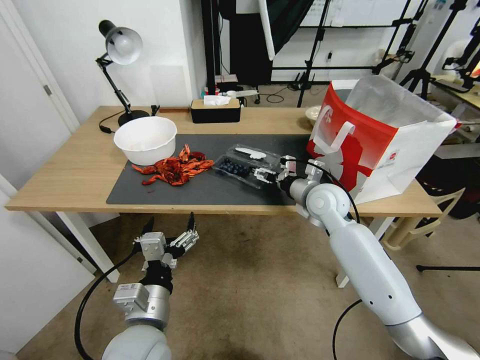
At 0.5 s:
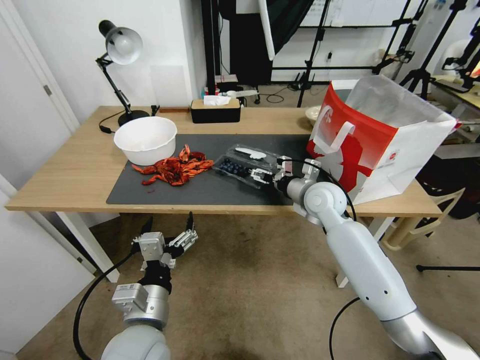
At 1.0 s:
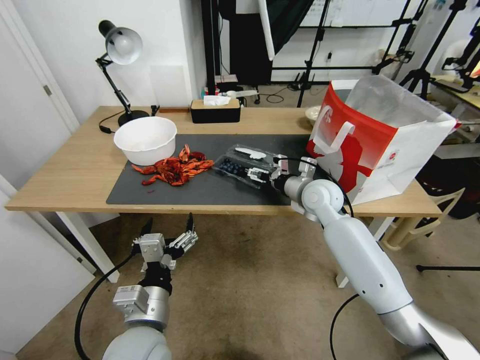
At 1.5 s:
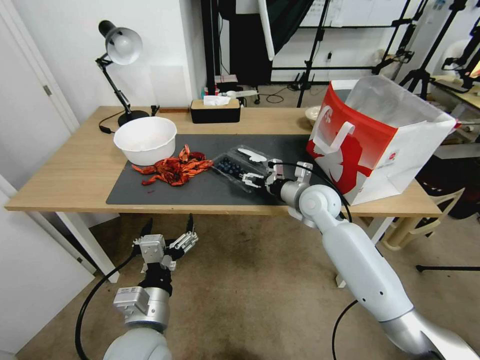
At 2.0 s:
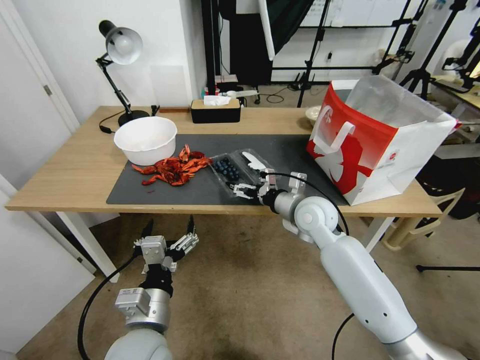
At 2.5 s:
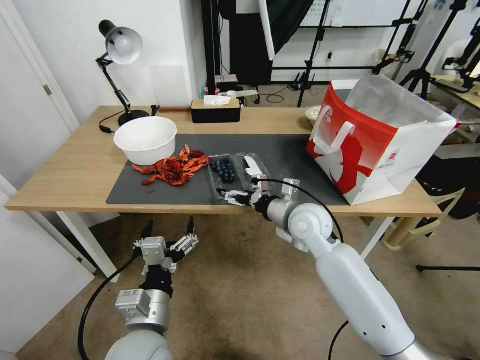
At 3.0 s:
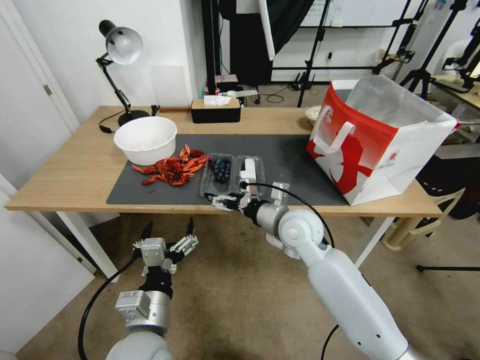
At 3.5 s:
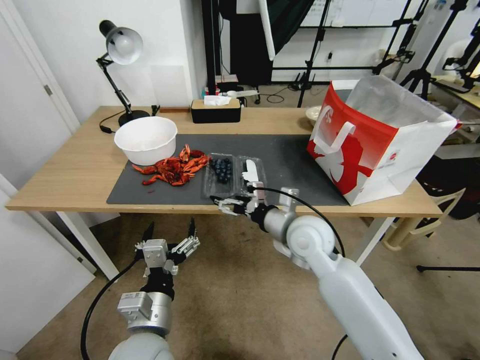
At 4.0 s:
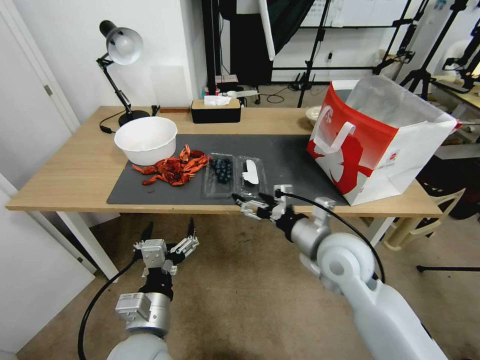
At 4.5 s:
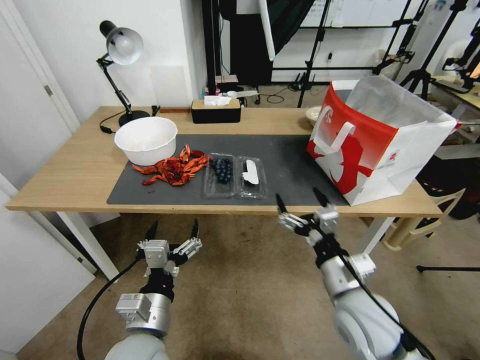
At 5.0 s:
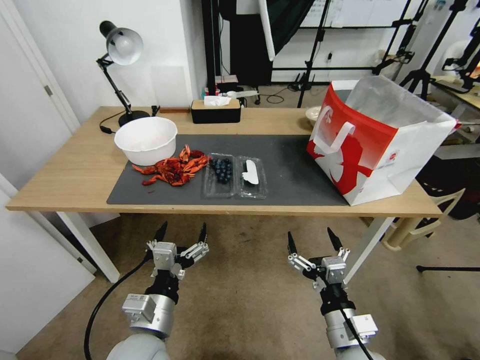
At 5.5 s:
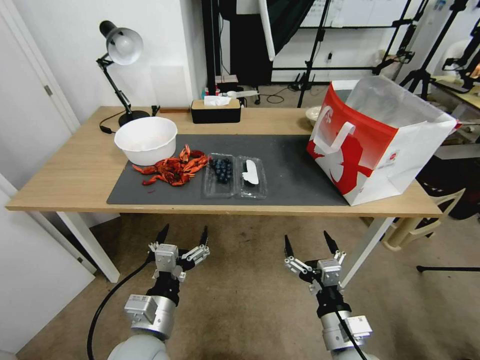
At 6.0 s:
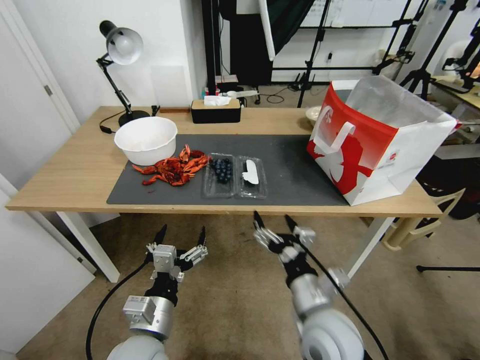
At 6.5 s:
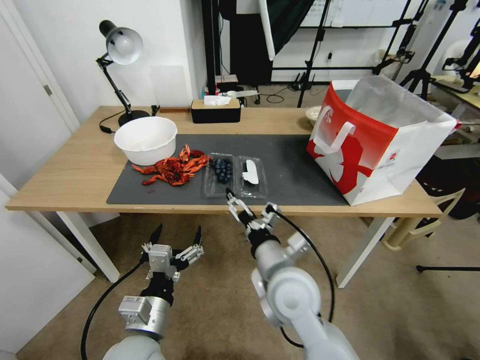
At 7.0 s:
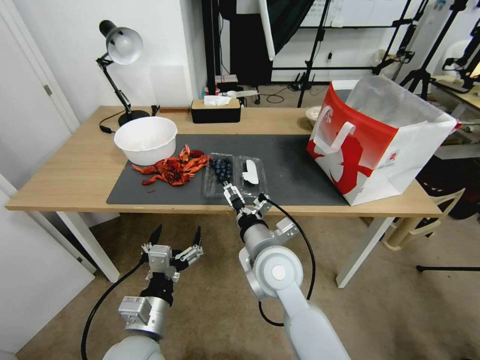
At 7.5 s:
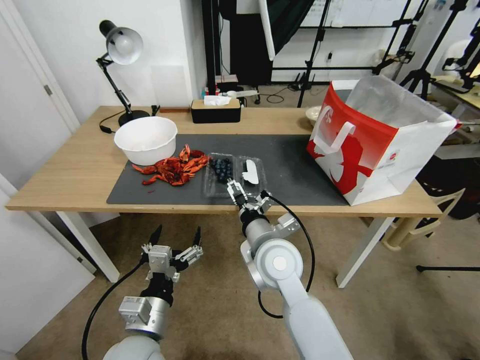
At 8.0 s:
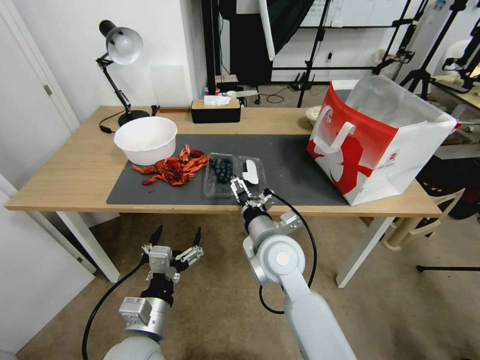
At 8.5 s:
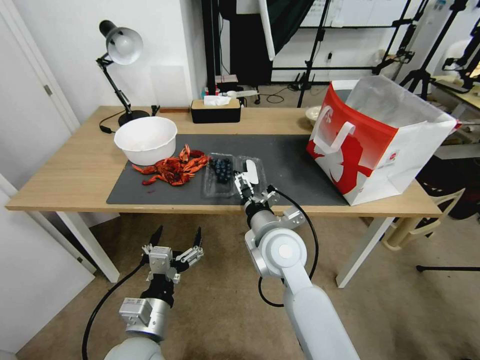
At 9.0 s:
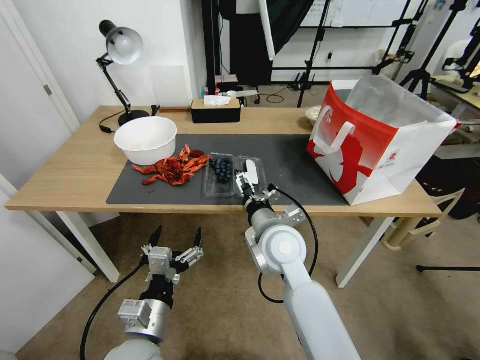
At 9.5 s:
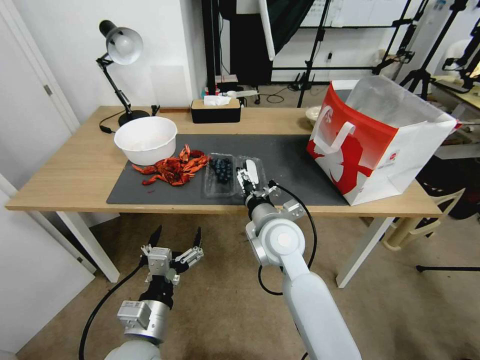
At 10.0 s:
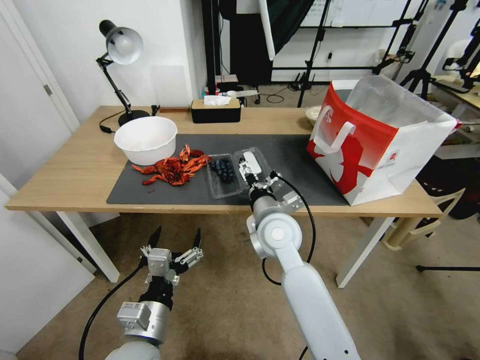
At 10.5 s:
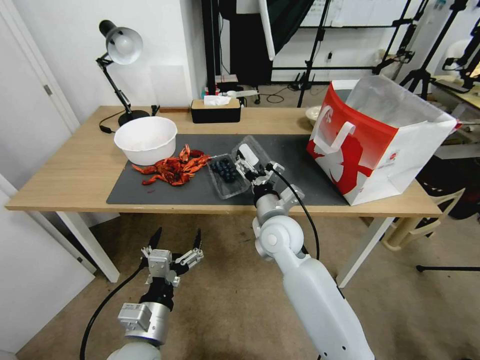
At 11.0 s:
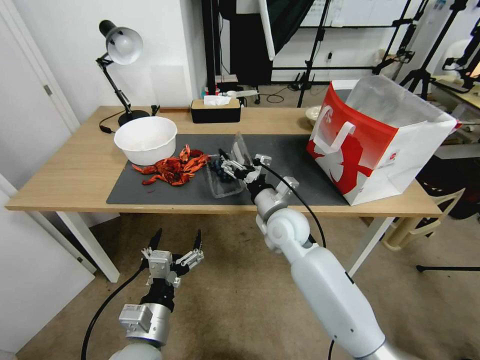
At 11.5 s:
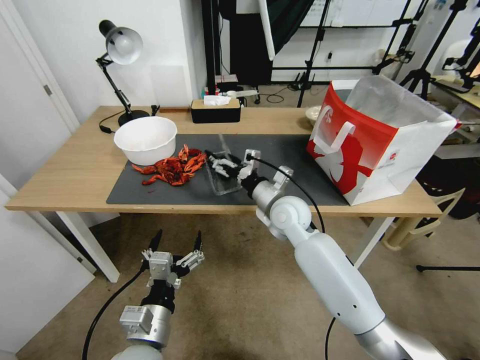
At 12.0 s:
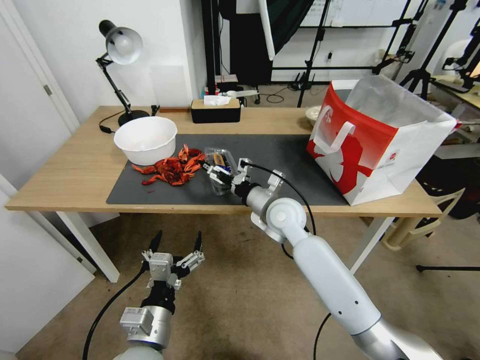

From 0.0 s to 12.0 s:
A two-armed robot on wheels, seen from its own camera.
Task of the whole recording: Close the takeout container lid, then place the container into the takeout bag.
From 0.0 s to 2.0 s: The grippers make only small movements.
From 2.0 s to 4.0 s: The right gripper shifts about 10 cm backward.
From 4.0 s to 6.0 s: The right gripper shifts about 15 cm backward and downward.
From 6.0 s to 8.0 s: The right gripper goes approximately 15 cm forward and to the left.
From 8.0 s to 10.0 s: The grippers make only small movements.
From 10.0 s to 12.0 s: The right gripper goes roughly 5 cm forward.

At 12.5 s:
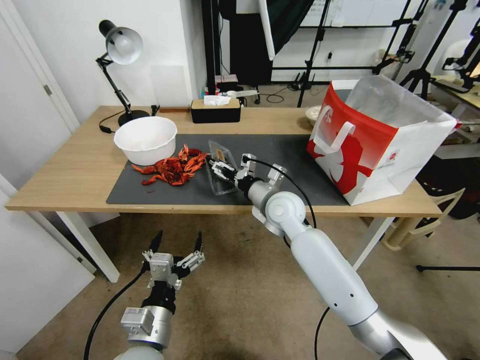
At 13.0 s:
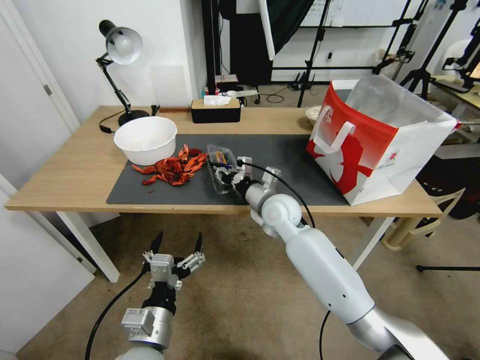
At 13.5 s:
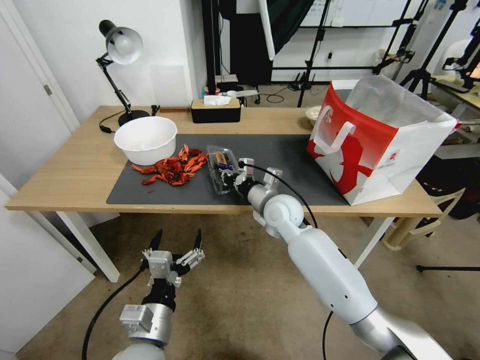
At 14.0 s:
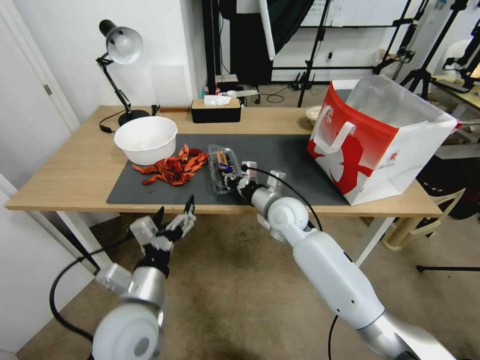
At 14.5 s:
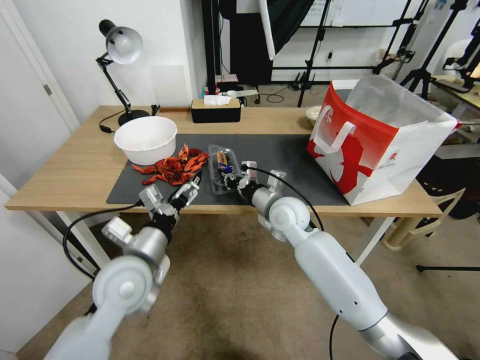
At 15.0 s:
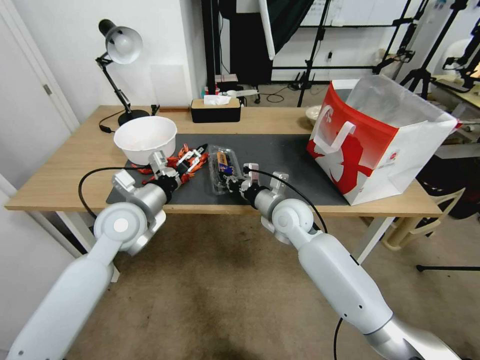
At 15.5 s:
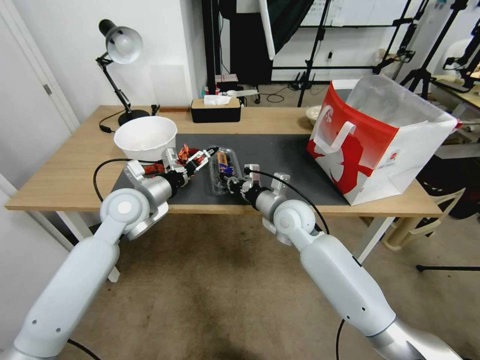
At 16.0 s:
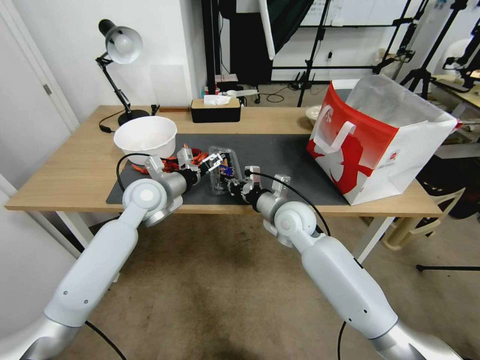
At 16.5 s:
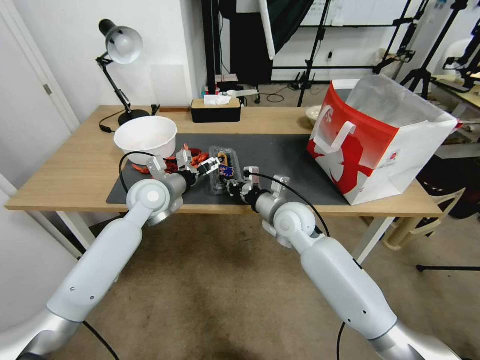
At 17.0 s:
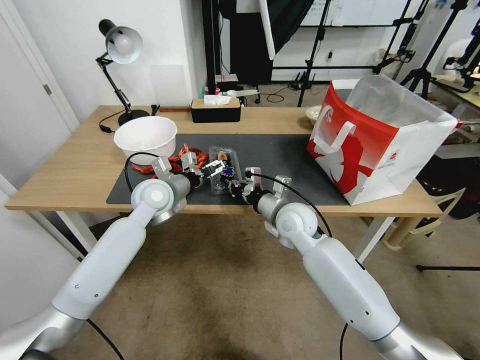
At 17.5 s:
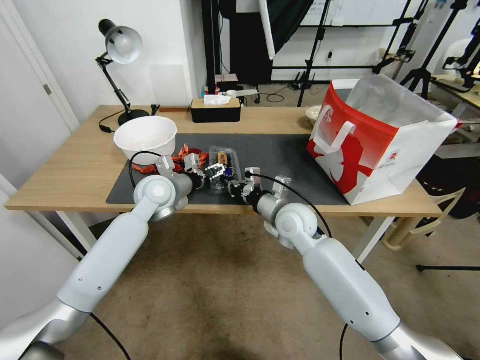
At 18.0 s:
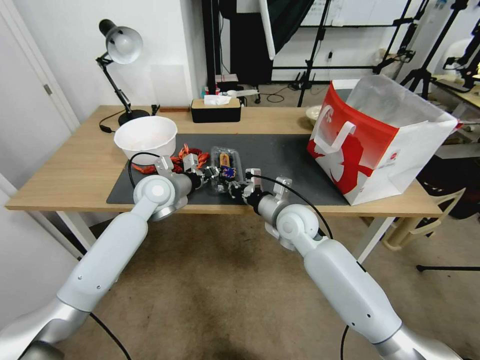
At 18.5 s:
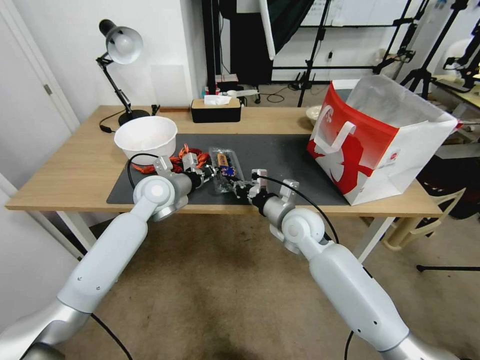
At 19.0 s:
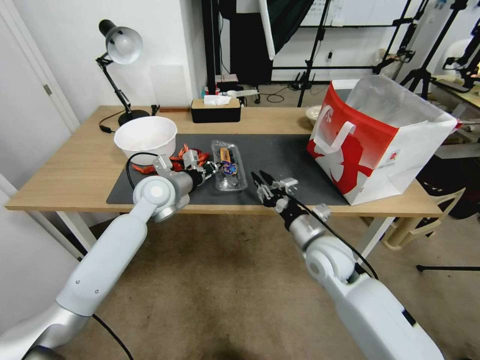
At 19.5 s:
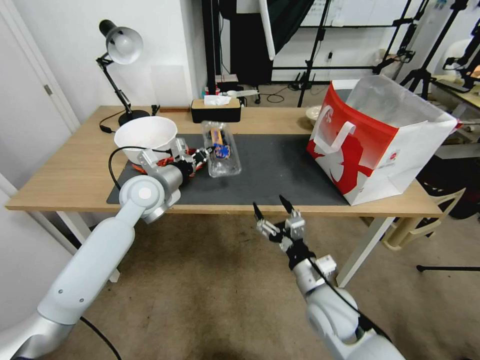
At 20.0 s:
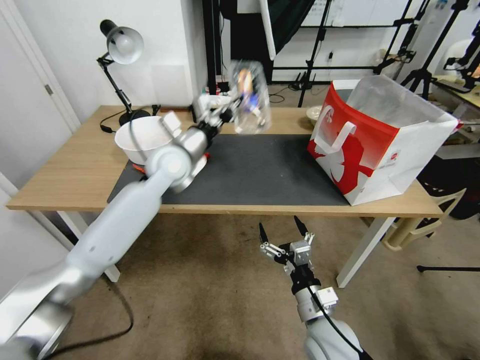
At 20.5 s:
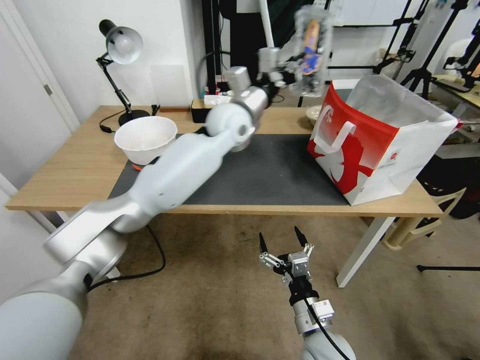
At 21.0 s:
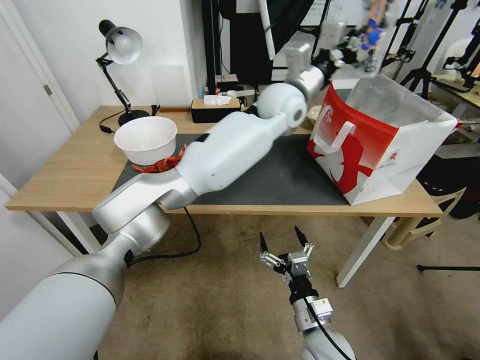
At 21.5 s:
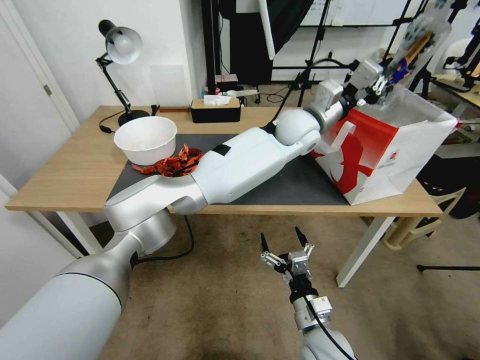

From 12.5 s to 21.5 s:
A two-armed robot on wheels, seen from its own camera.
Task of the whole recording: Close the takeout container lid, then place the container into the takeout bag.
From 12.5 s to 14.5 s: The left gripper heads forward and upward, covering some 15 cm. Meanwhile the right gripper closes.
From 14.5 s to 17.0 s: The left gripper moves forward, some 20 cm.
From 17.0 s to 19.5 s: The right gripper heads backward and downward, covering about 20 cm, and opens its fingers, while the left gripper closes up.
From 19.5 s to 21.5 s: The left gripper heads to the right, covering about 35 cm. The right gripper goes roughly 10 cm backward and downward.

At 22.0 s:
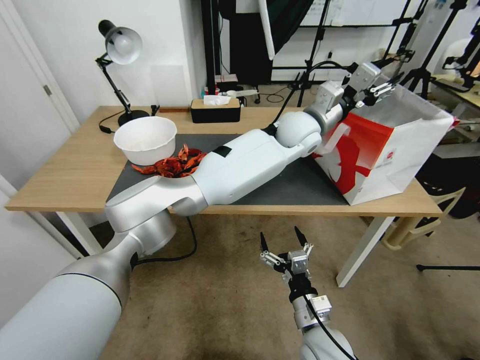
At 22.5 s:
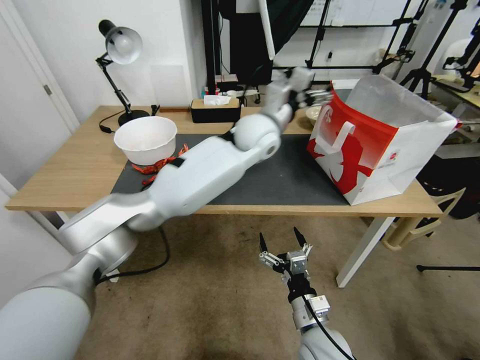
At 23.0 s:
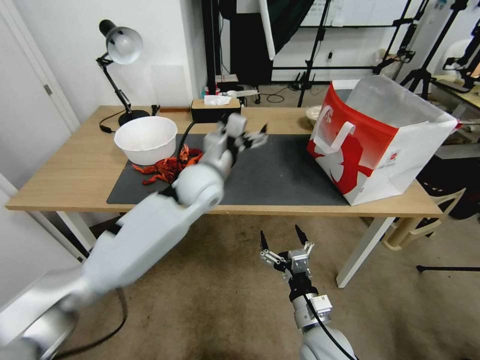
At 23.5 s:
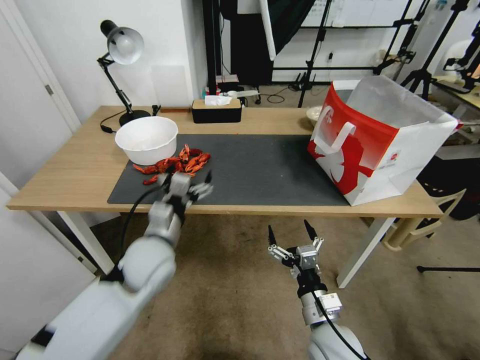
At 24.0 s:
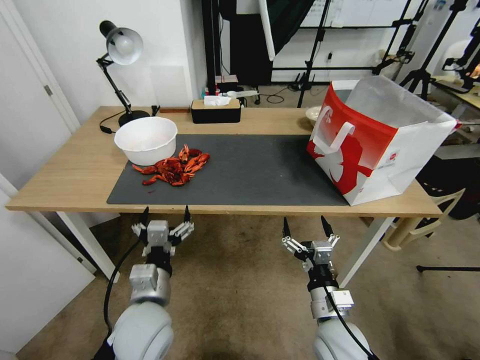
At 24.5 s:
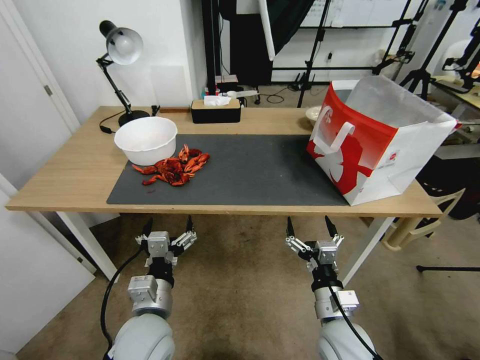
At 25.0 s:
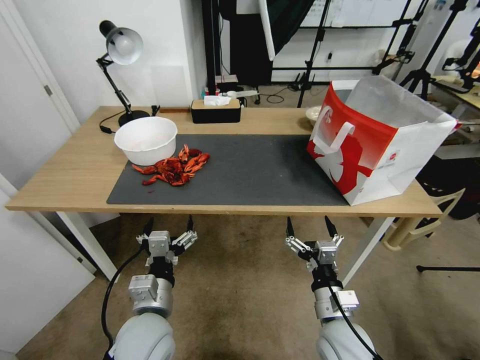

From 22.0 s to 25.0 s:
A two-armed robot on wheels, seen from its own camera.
Task of the whole recording: Close the takeout container lid, then place the container into the takeout bag.
From 22.0 s to 23.5 s: The left gripper travels to the left, backward and downward by roughly 35 cm, and opens up.
From 23.5 s to 25.0 s: The left gripper moves backward and downward, approximately 20 cm.
